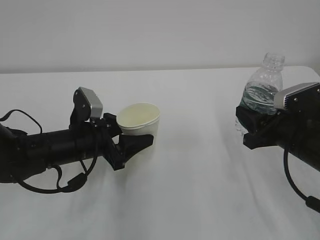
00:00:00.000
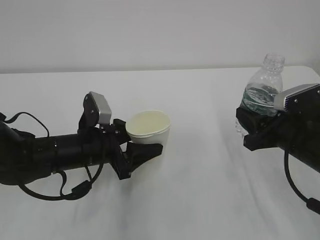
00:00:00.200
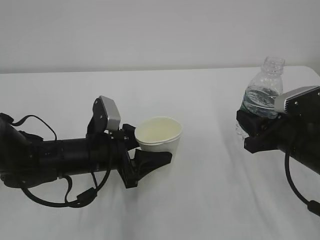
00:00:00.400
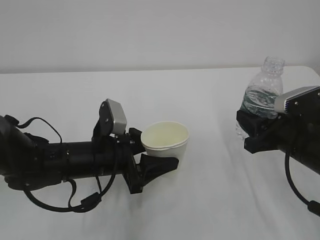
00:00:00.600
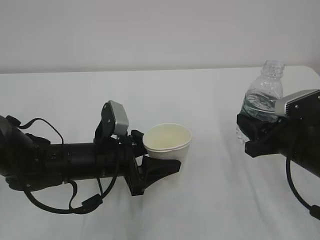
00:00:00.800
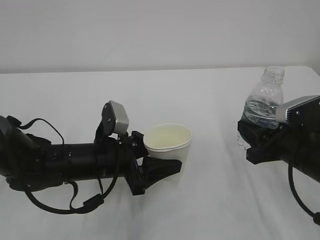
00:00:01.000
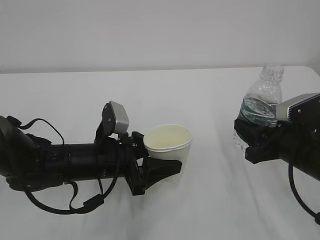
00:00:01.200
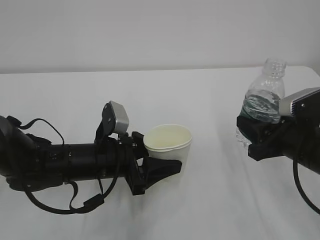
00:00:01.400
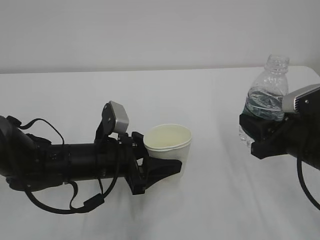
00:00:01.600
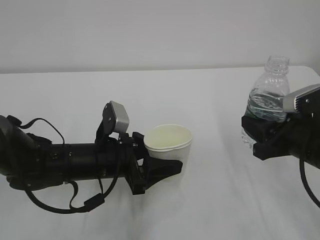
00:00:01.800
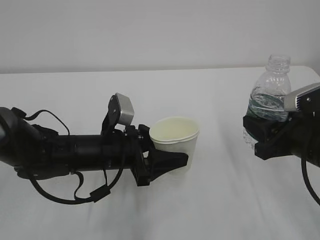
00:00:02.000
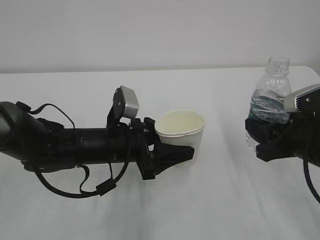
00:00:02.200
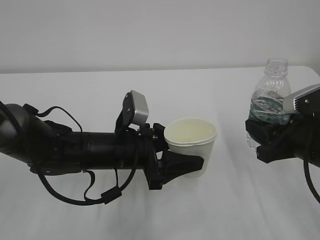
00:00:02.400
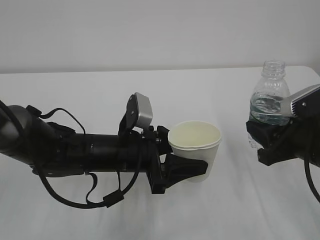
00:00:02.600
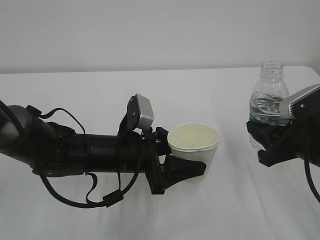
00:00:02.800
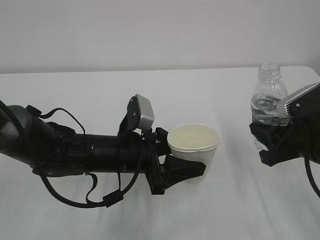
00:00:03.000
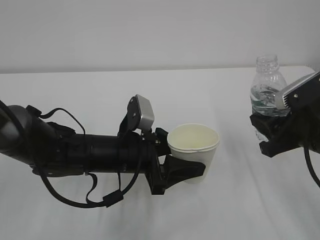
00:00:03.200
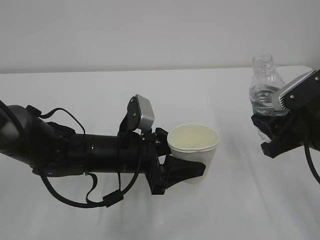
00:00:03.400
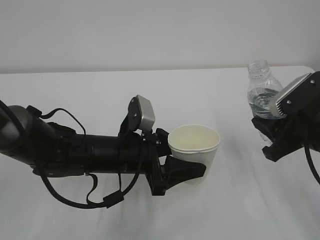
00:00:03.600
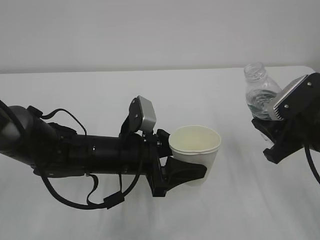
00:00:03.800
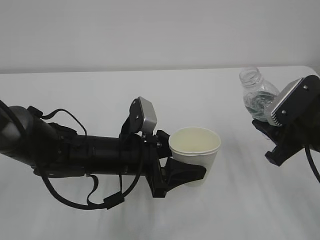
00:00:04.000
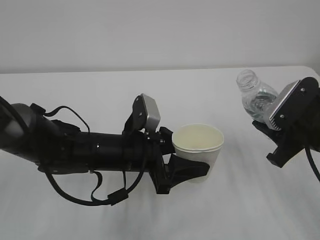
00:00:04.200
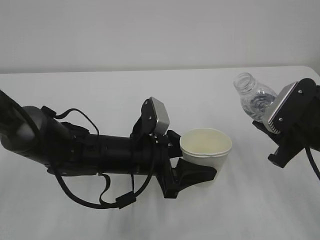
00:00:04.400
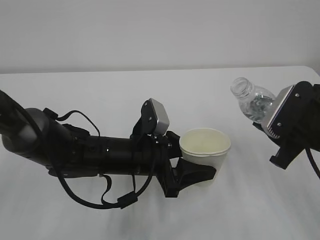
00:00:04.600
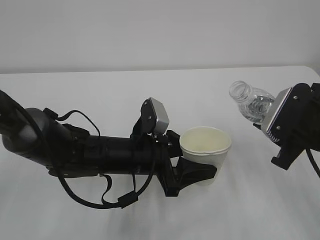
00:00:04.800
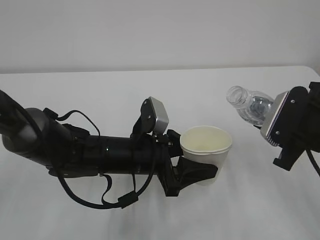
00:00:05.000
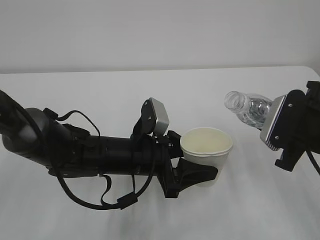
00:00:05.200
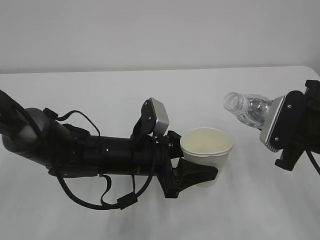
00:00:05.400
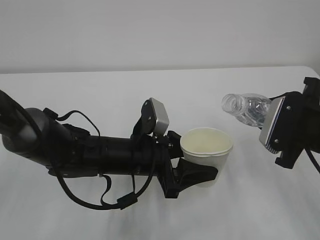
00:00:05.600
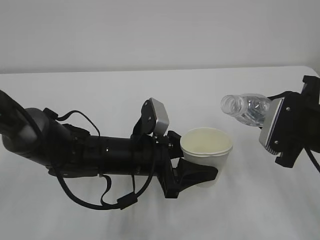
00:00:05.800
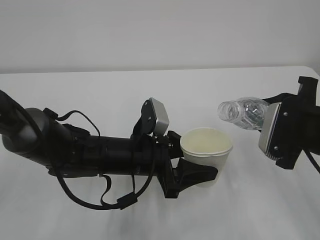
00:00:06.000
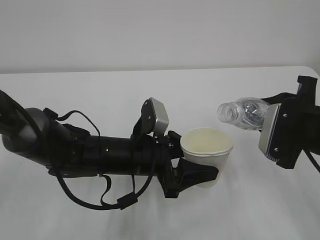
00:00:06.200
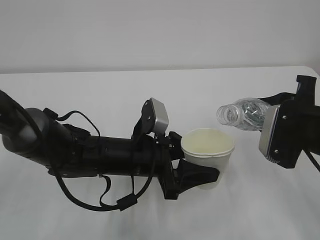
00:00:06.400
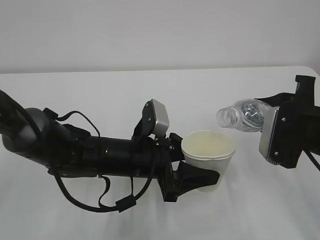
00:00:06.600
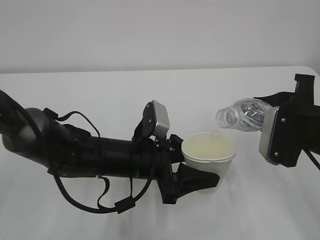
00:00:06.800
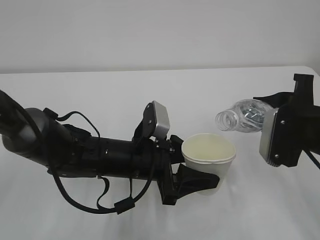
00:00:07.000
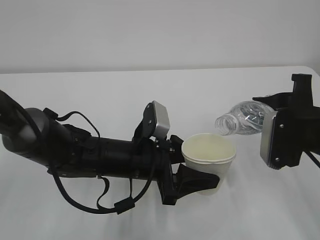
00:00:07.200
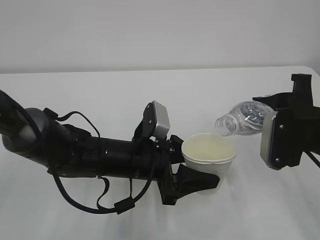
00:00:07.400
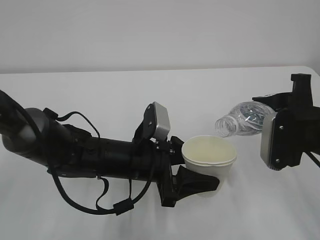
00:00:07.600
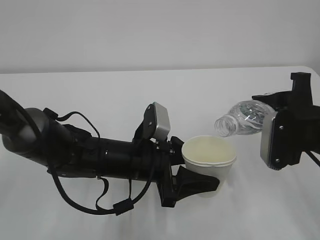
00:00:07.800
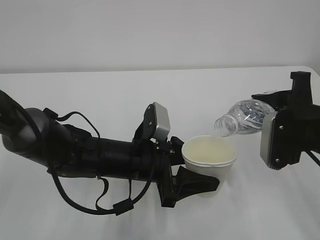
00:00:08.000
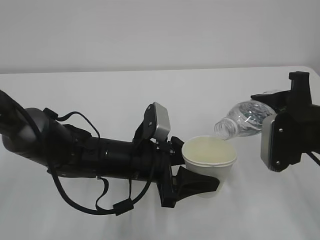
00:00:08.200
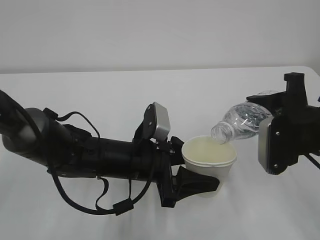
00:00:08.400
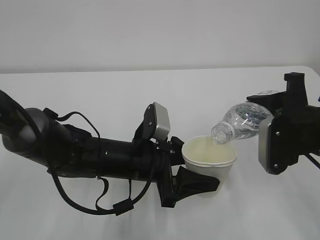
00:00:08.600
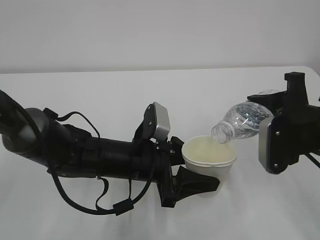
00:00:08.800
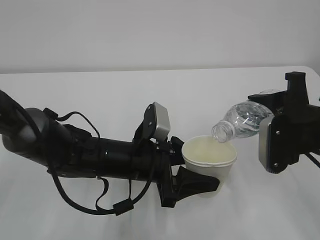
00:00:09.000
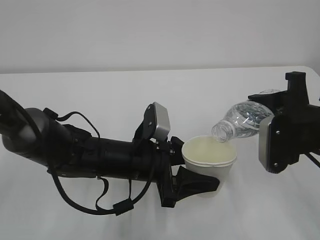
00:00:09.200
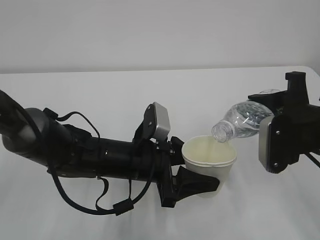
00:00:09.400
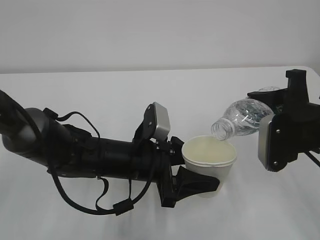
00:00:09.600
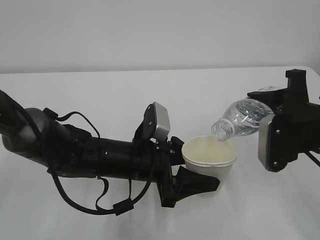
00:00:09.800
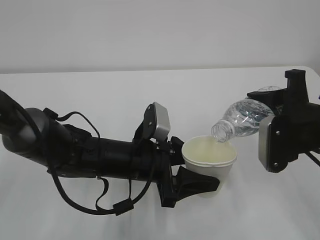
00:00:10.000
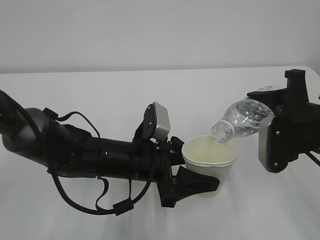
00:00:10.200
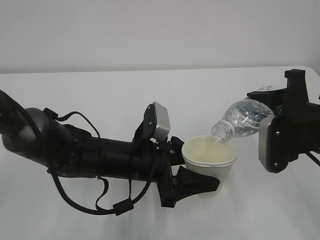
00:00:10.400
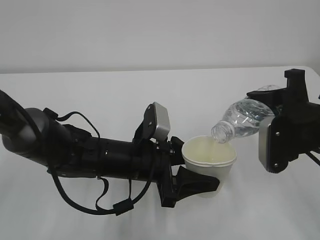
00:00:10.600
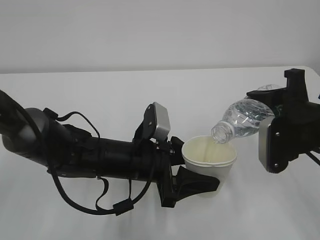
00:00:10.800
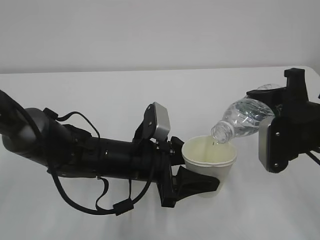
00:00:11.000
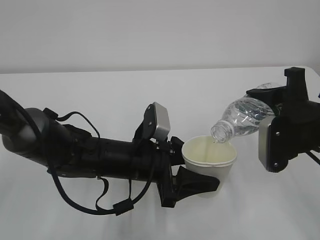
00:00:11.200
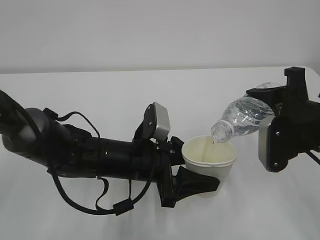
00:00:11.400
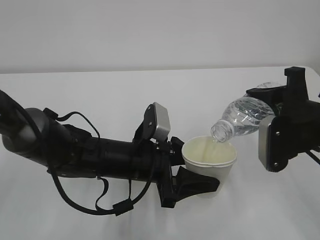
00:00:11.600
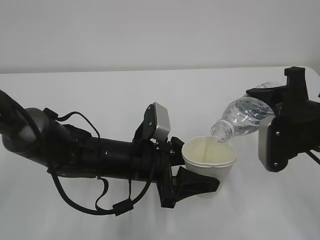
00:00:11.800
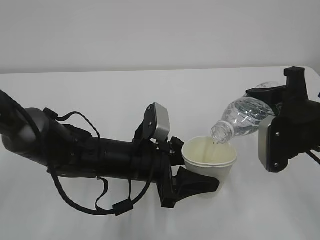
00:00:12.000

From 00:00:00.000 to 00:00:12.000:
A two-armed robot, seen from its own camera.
From 00:00:00.000 to 00:00:01.600: The left gripper ends up some 5 cm from where it was.
From 00:00:01.600 to 00:00:03.000: The grippers move only a little.
From 00:00:06.000 to 00:00:07.600: The grippers stay close to where they were, moving slightly.
From 00:00:07.600 to 00:00:09.000: The grippers make only small movements.
From 00:00:09.000 to 00:00:10.400: The two grippers keep their place.
From 00:00:10.400 to 00:00:12.000: The two grippers keep their place.

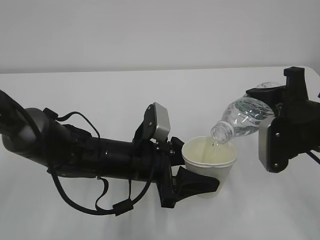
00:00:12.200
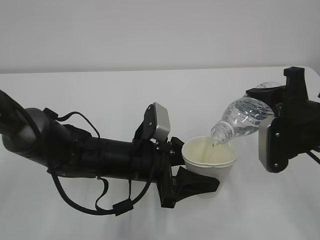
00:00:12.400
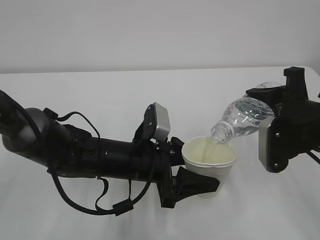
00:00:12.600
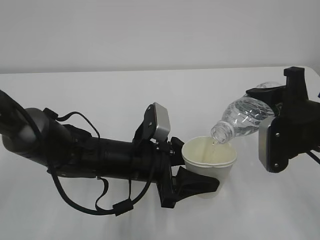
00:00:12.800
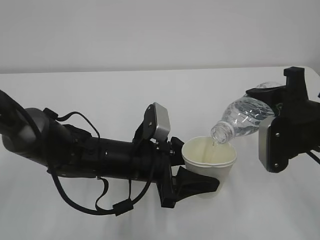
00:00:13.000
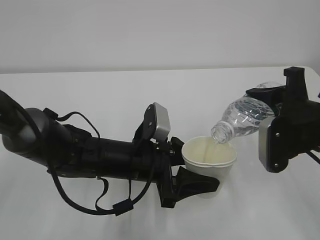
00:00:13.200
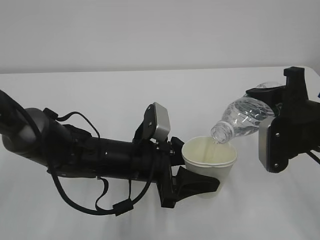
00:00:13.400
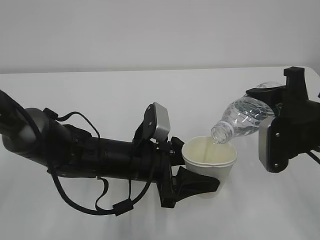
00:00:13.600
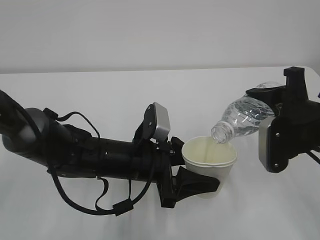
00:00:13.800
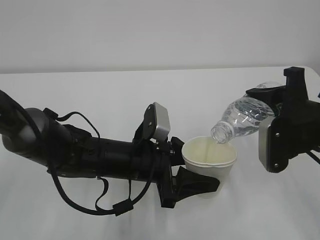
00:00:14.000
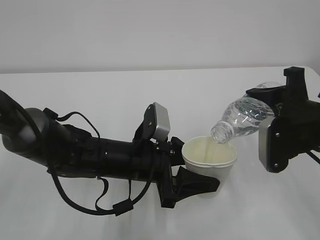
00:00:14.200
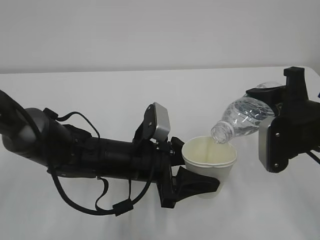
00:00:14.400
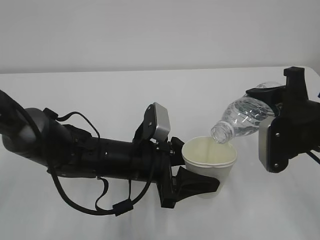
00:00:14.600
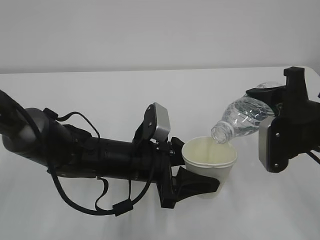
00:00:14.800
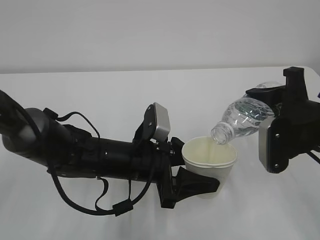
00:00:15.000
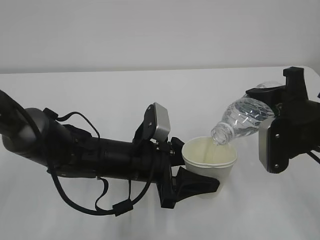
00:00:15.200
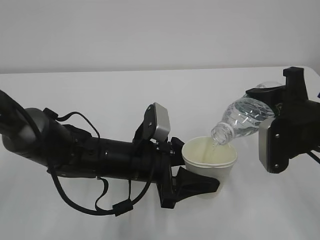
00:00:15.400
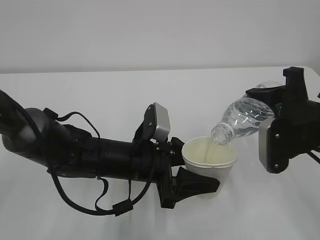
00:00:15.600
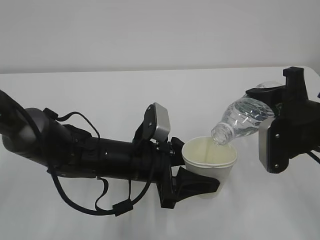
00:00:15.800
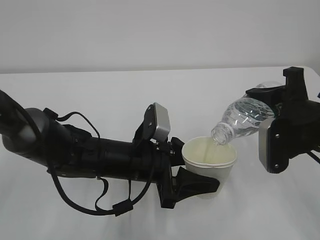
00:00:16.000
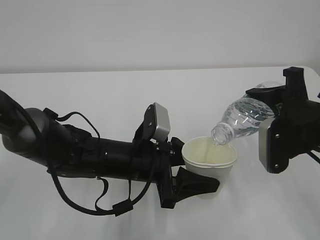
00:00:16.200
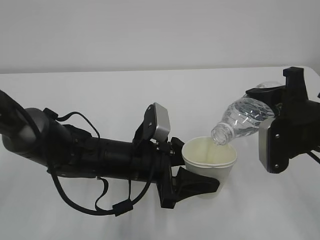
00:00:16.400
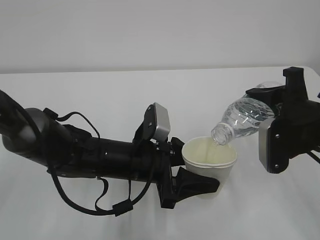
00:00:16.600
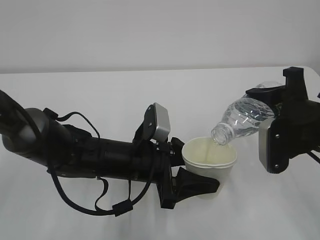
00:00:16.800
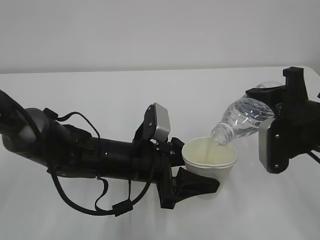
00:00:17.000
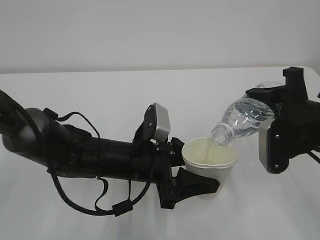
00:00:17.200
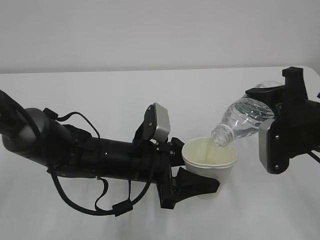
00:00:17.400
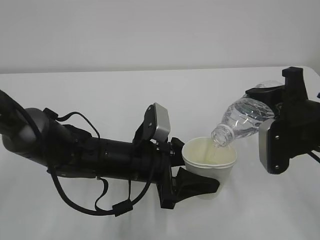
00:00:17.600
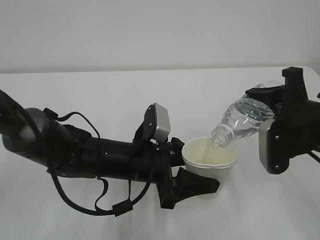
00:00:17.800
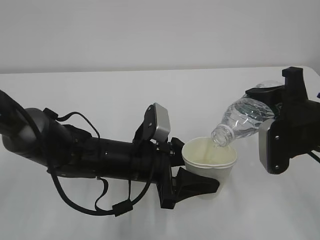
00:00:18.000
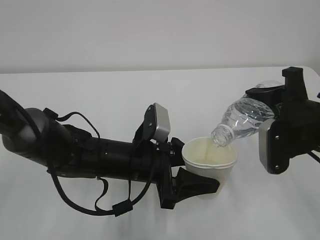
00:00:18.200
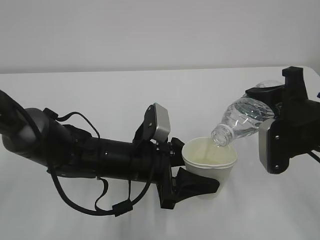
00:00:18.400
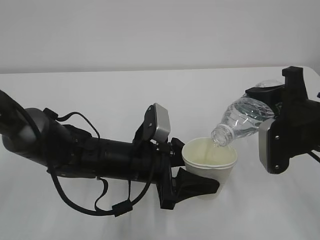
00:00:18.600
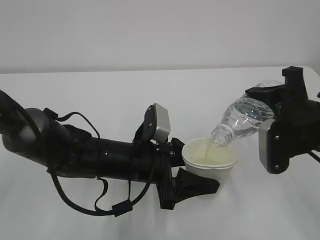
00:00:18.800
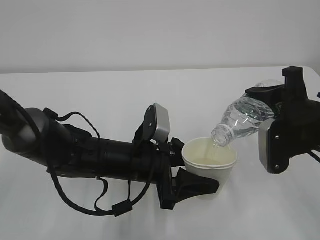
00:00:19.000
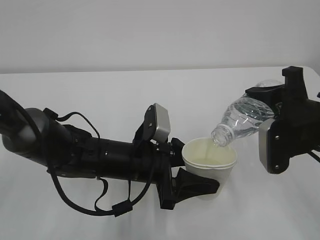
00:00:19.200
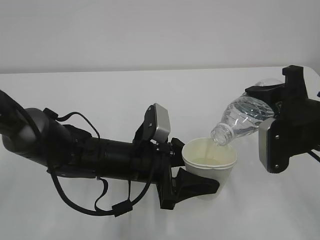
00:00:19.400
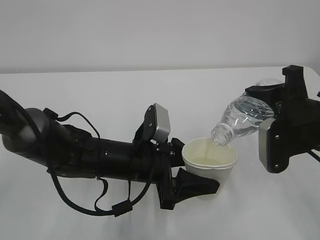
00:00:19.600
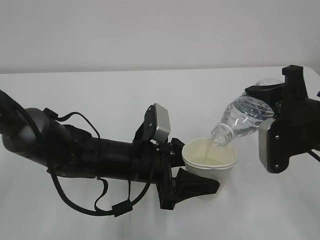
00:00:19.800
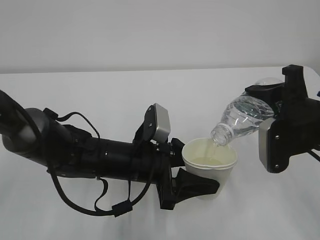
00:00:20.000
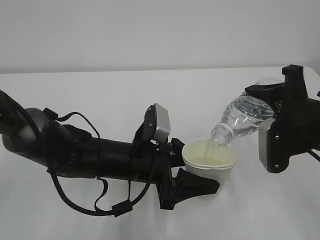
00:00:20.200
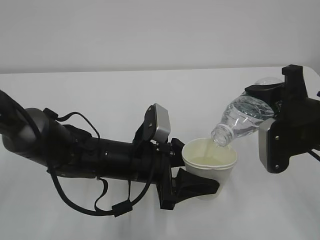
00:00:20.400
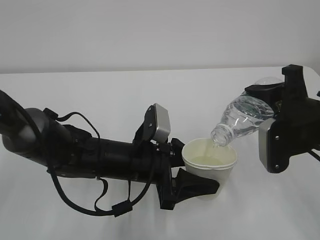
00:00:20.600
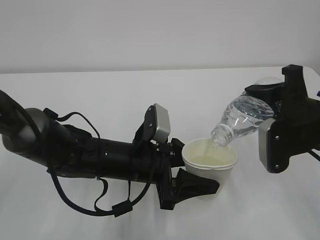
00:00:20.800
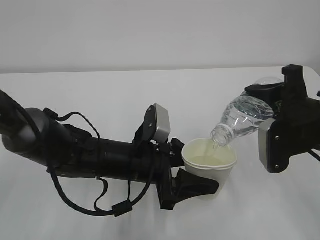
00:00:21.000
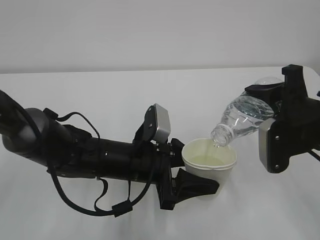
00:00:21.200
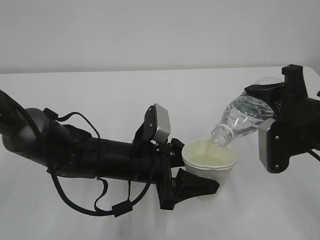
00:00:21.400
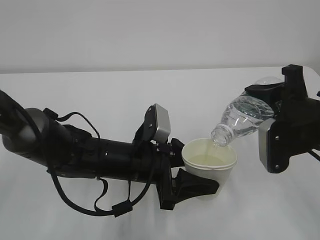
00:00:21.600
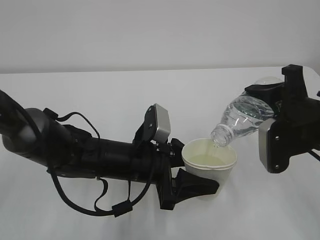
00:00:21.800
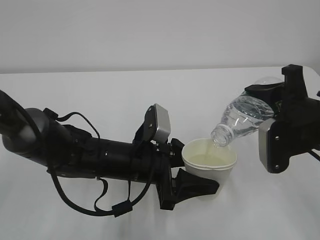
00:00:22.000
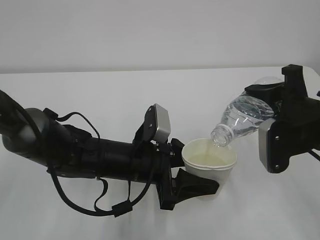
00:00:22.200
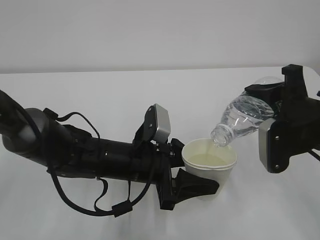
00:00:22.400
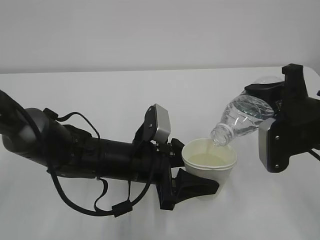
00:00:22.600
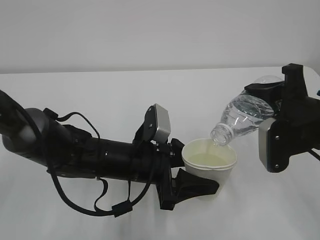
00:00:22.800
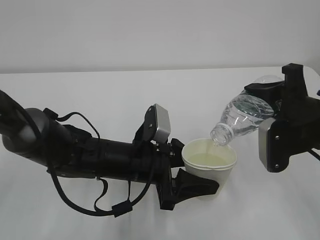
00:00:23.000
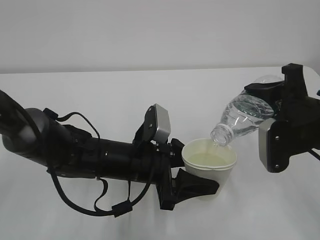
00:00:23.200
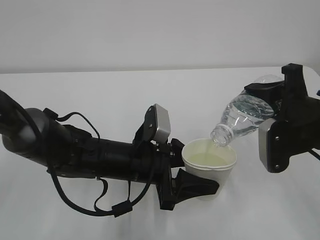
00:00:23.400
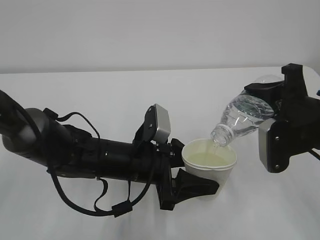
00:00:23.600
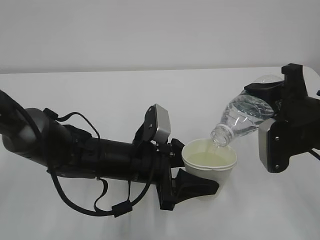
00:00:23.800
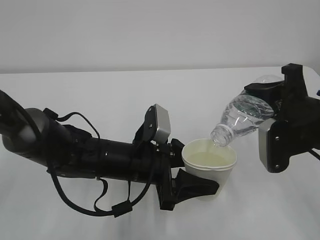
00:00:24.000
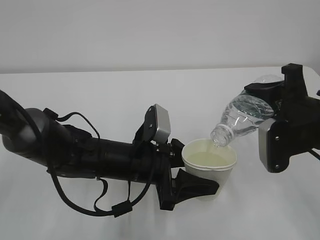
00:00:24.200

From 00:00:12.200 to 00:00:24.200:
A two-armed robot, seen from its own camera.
From 00:00:12.200 to 00:00:19.800: Both grippers stay put.
From 00:00:19.800 to 00:00:24.200: Both grippers stay about where they are.
